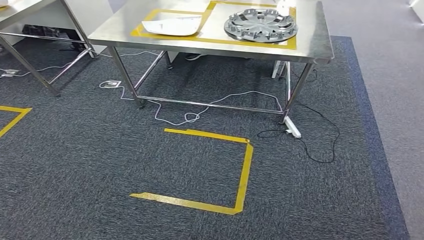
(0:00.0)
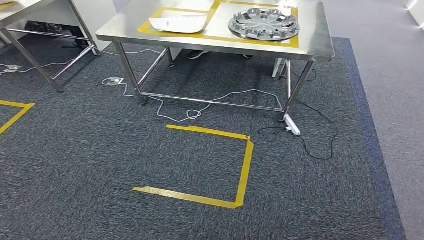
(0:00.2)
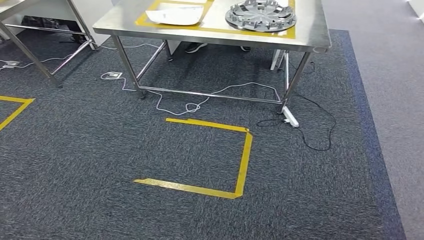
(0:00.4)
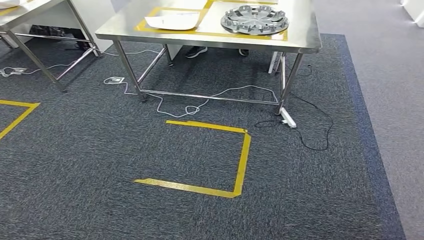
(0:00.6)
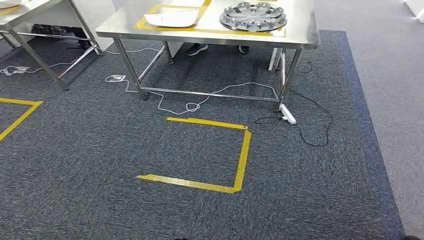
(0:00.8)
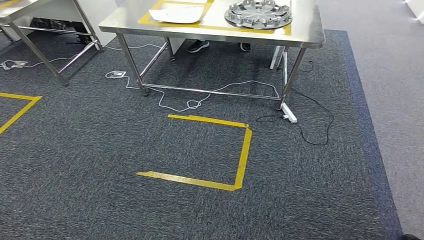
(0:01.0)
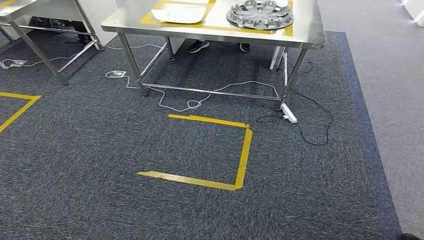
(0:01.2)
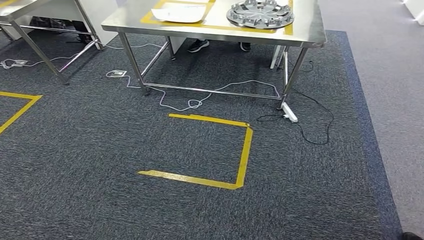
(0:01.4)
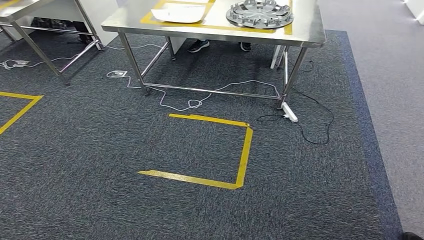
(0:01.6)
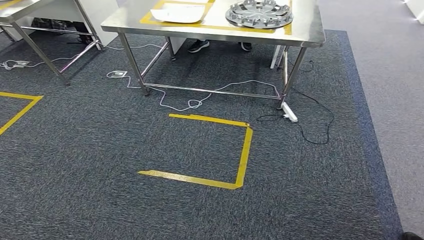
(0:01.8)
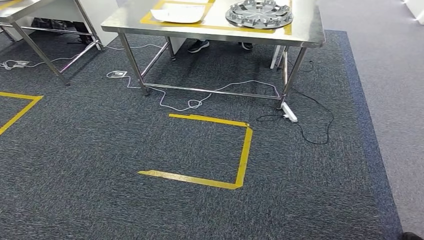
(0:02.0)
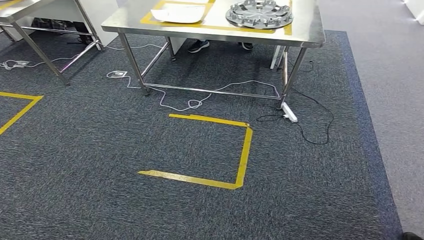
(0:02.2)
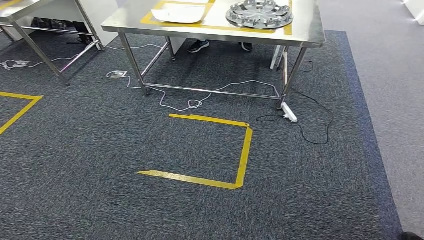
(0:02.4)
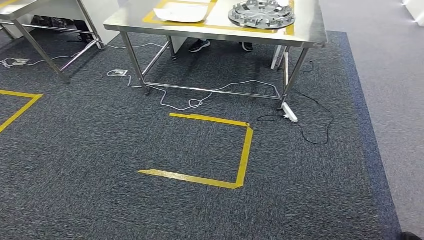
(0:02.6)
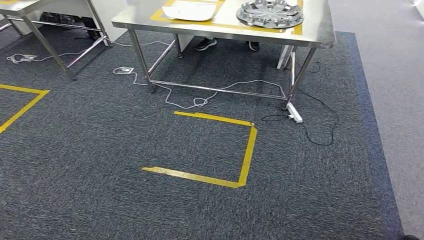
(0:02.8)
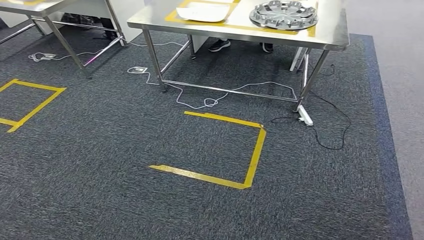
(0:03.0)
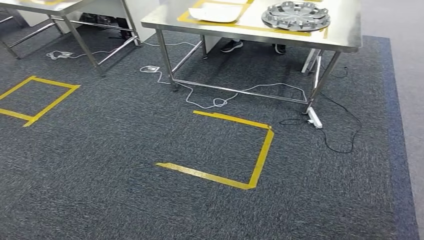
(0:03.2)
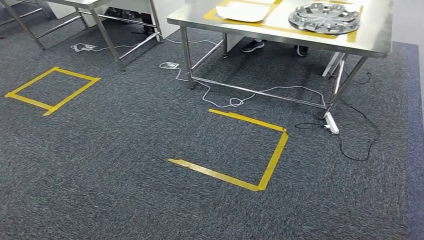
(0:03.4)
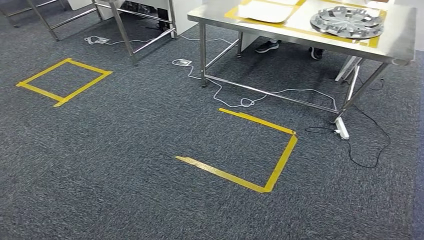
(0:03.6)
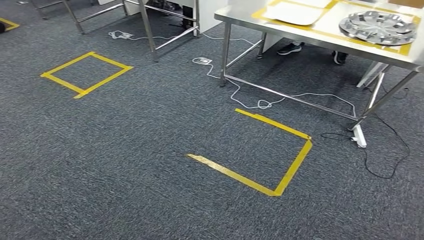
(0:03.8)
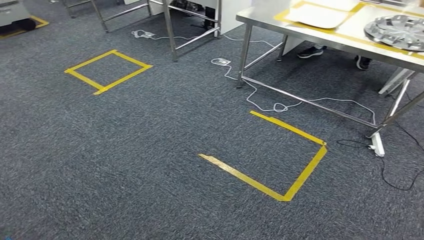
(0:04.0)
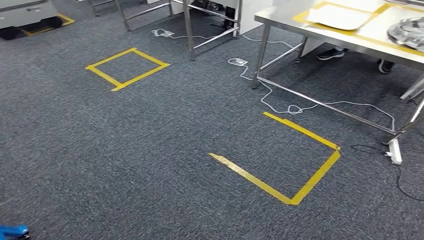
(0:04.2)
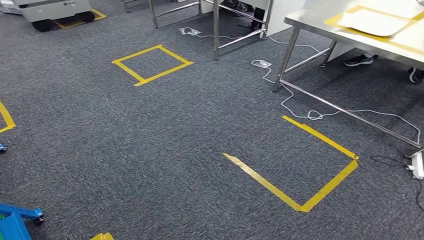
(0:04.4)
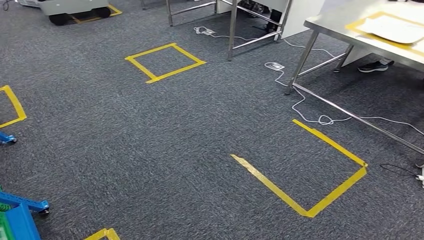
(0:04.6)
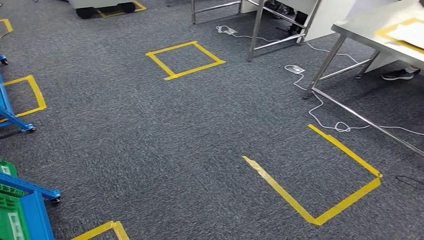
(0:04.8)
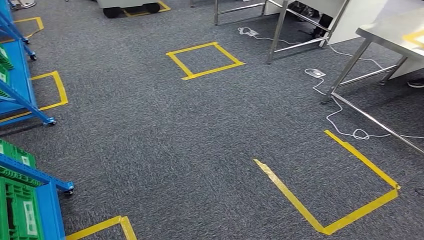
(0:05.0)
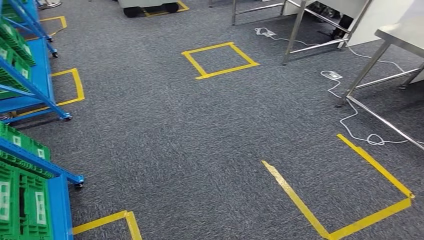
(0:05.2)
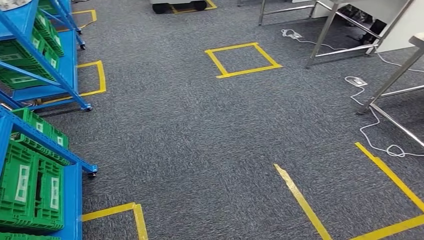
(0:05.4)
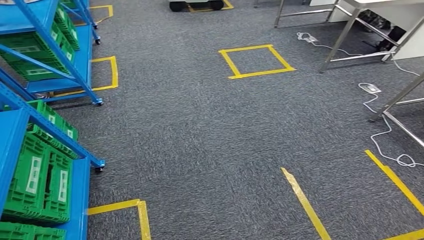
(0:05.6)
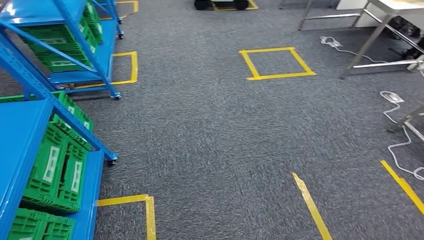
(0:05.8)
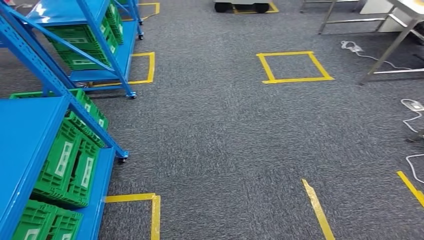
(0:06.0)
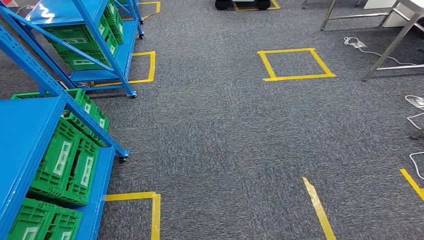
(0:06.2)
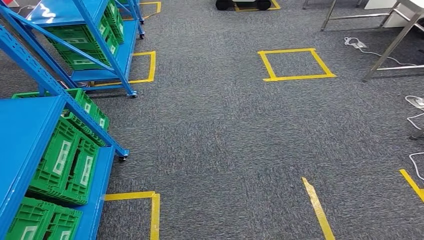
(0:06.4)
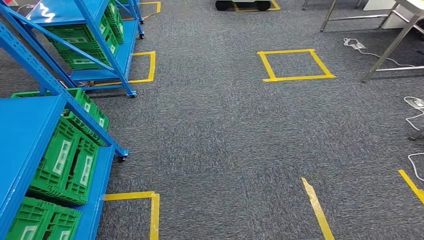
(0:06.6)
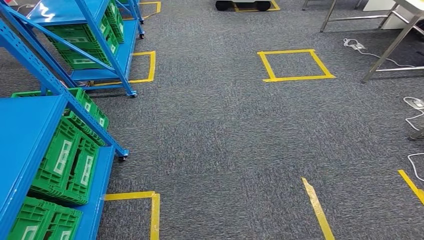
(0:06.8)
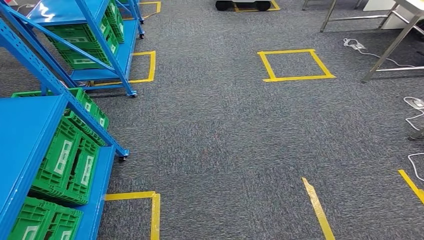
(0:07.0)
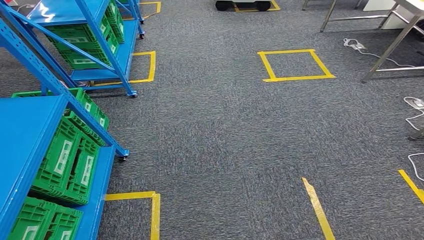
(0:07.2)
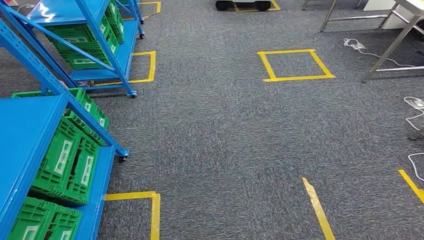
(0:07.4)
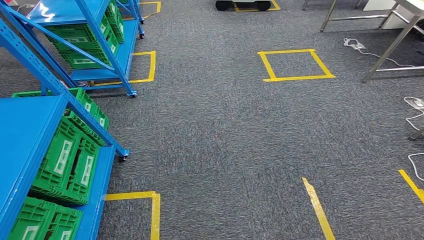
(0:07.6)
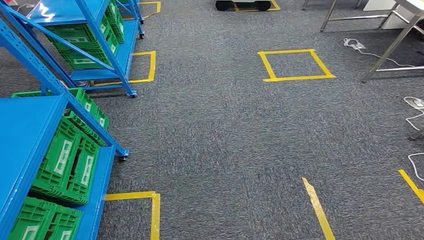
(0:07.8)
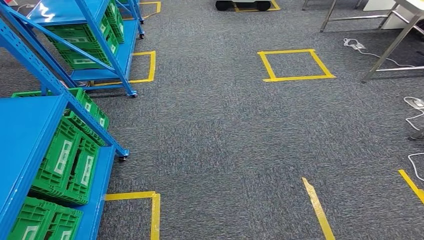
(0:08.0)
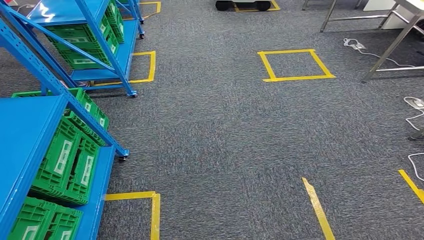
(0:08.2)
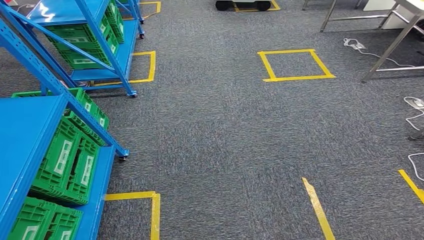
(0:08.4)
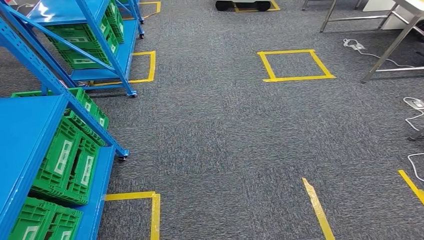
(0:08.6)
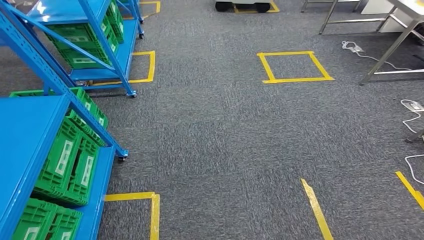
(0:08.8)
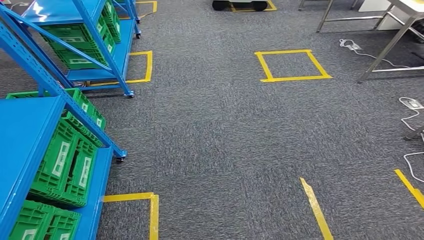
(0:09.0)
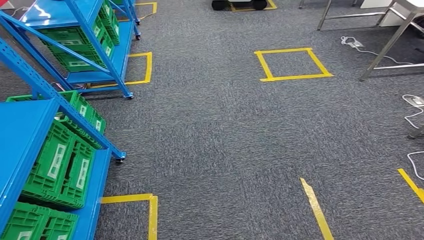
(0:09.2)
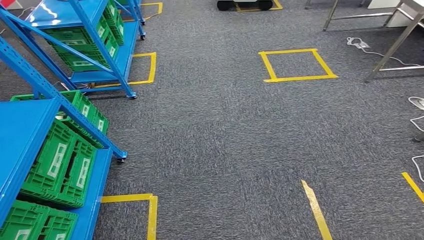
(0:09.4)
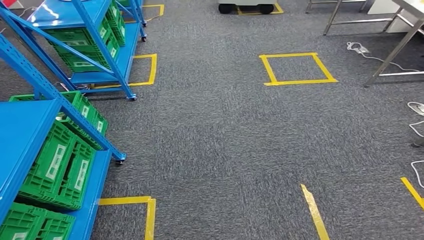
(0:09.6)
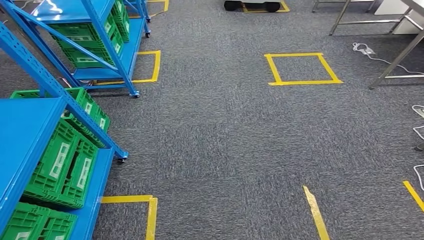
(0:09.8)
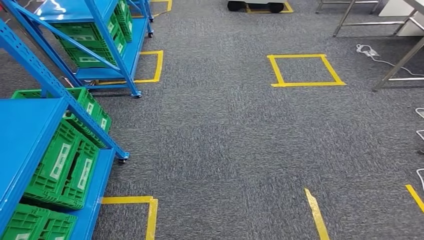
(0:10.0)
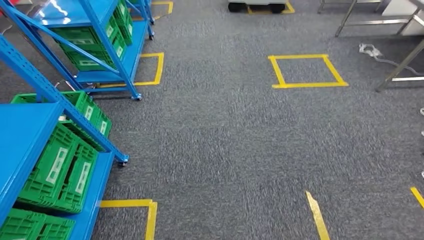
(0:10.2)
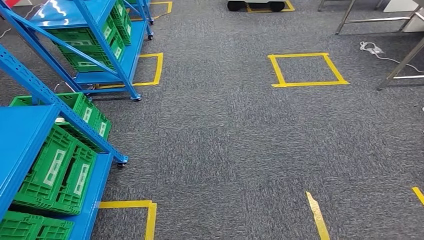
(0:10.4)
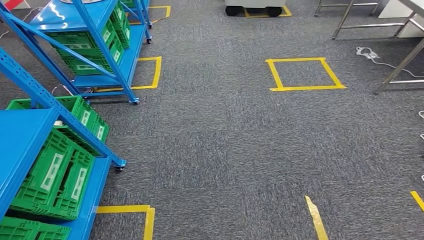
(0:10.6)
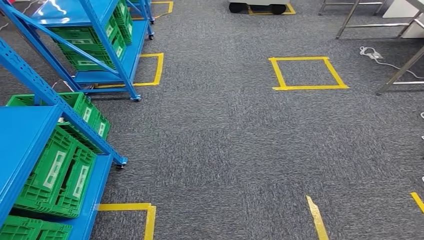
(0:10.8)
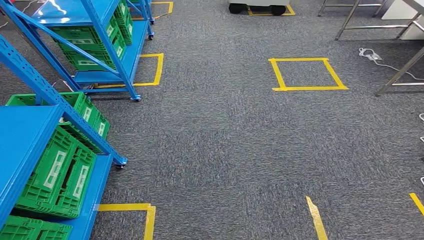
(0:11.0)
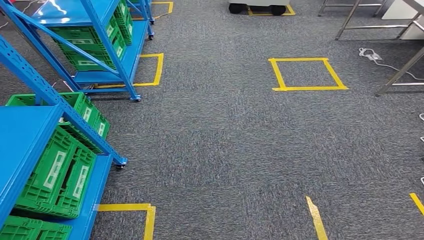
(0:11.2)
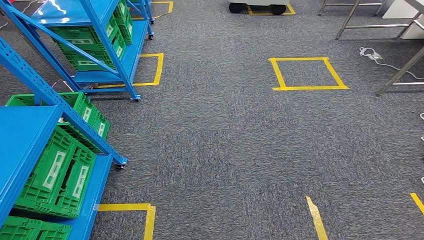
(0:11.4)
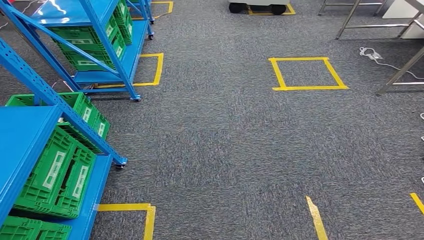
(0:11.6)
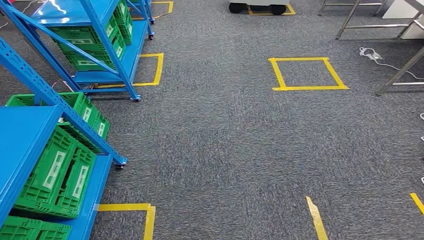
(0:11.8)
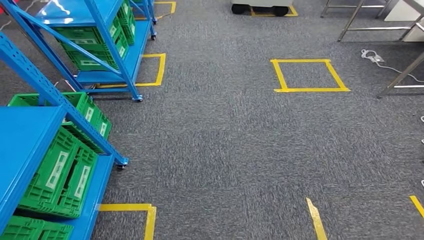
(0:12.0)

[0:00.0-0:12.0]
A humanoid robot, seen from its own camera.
0:00.0 to 0:01.6: The left hand shifts roughly 10 cm to the right.
0:06.0 to 0:09.0: Both hands stay about where they are.
0:10.4 to 0:12.0: Both hands stay about where they are.

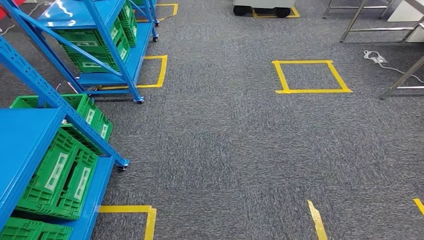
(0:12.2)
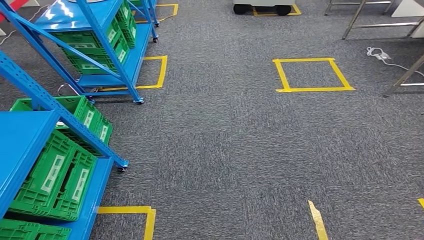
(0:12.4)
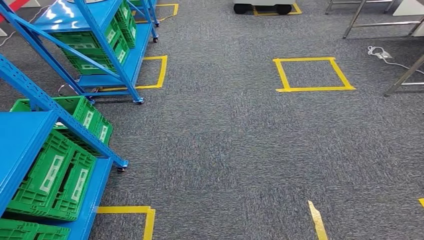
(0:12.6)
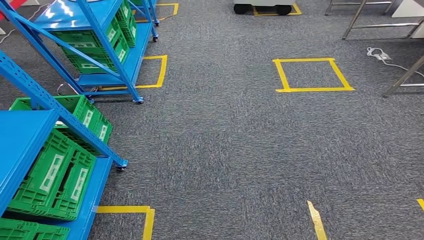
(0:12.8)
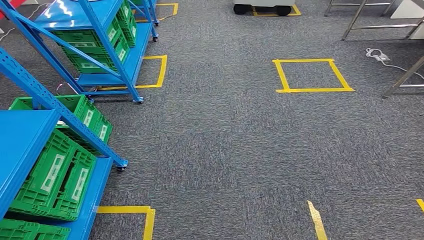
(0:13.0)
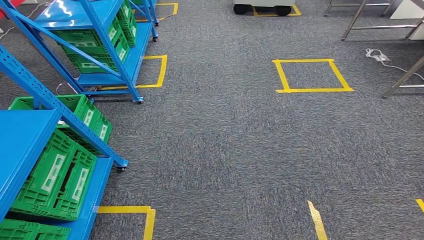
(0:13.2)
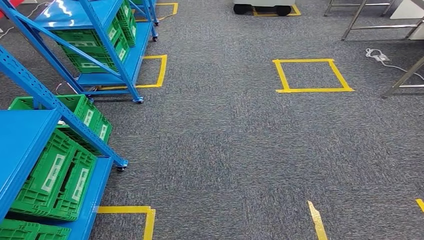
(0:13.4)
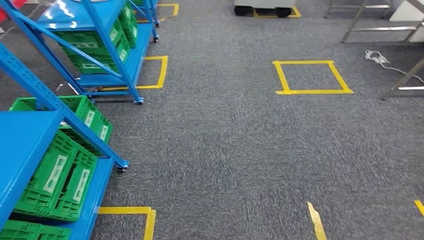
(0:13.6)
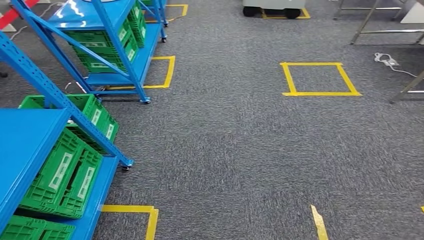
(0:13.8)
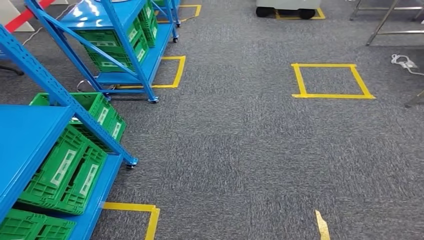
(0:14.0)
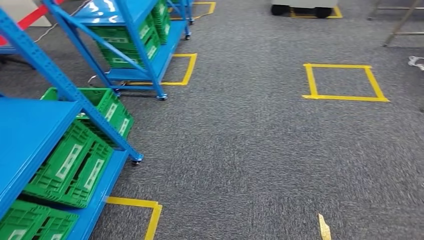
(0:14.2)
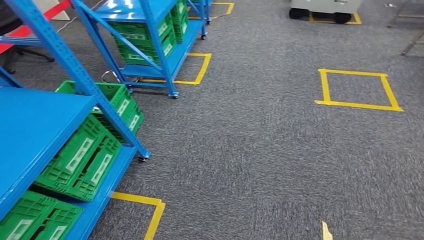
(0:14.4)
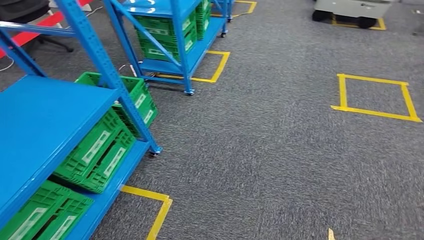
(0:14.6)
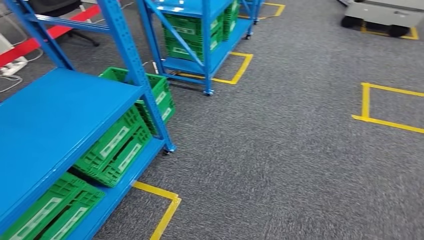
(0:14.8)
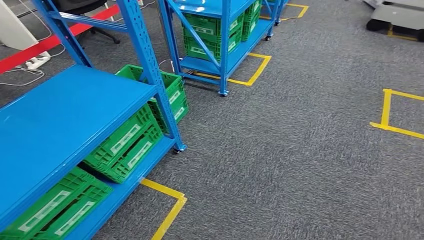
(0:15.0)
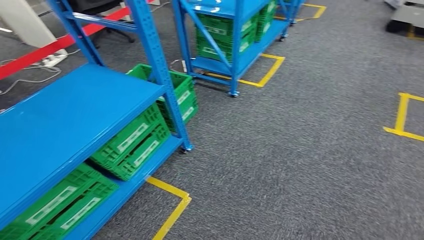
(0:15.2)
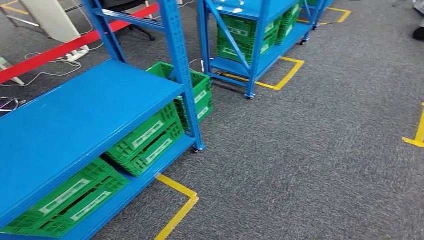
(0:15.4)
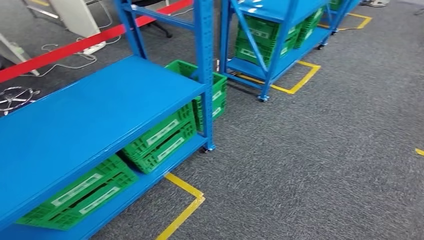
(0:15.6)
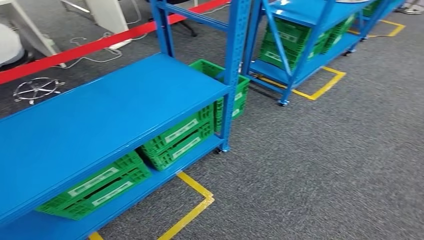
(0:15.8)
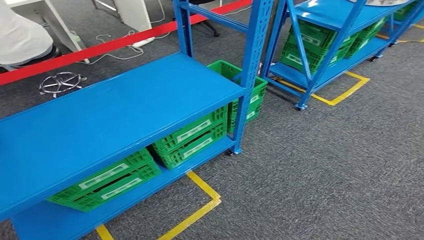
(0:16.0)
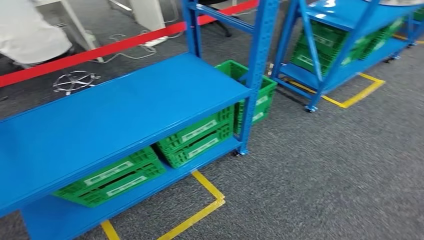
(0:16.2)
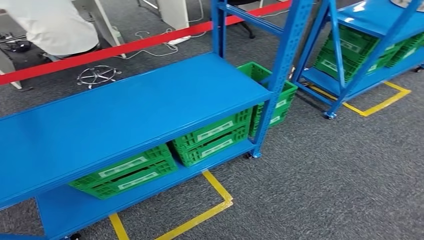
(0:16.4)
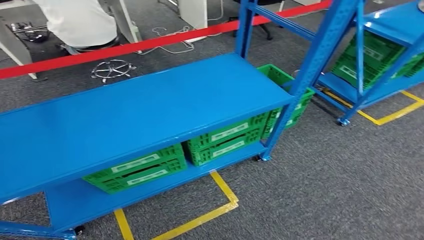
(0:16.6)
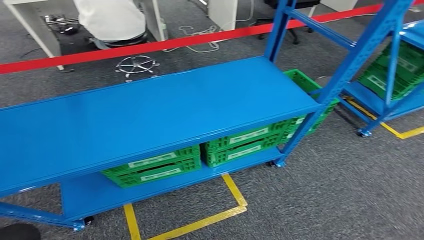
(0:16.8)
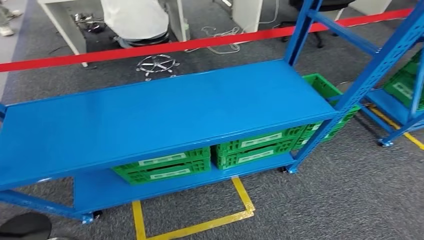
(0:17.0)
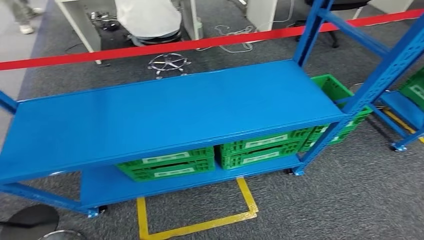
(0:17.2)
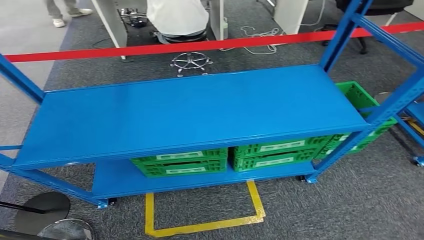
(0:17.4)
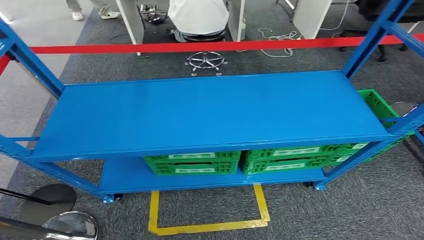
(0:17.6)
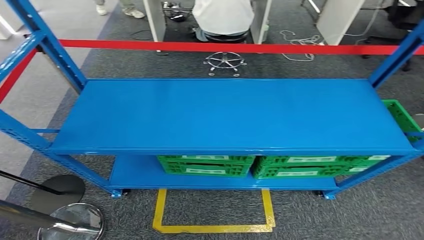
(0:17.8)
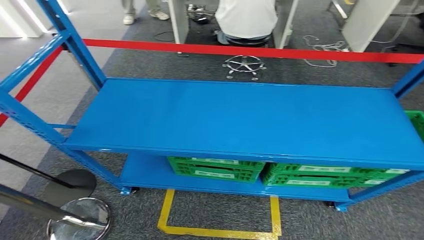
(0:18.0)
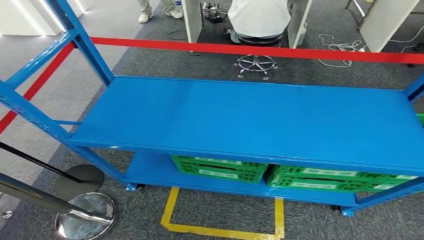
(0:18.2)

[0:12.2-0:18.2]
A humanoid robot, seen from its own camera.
0:12.2 to 0:13.8: Neither hand changes place.
